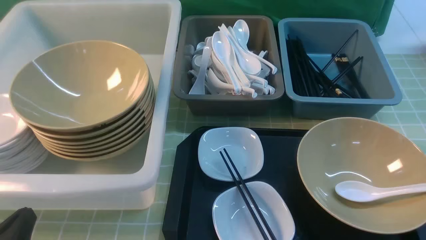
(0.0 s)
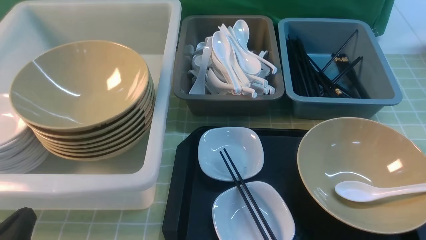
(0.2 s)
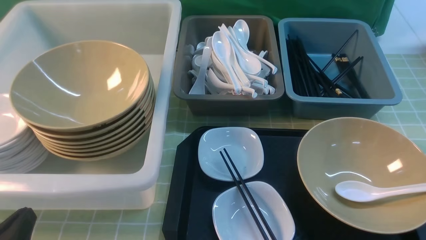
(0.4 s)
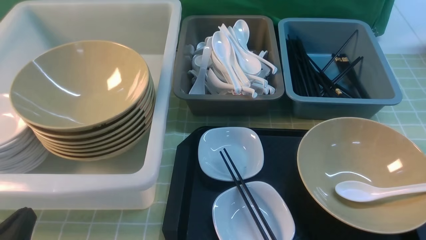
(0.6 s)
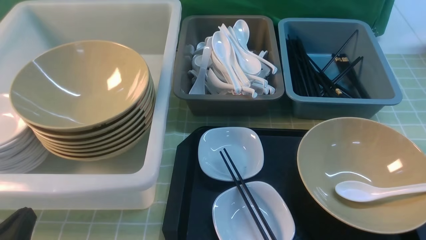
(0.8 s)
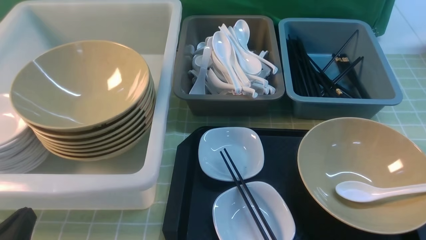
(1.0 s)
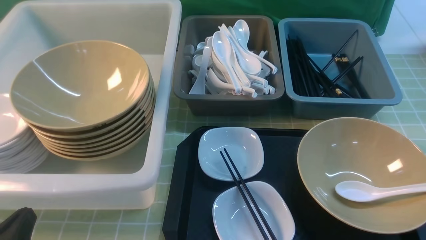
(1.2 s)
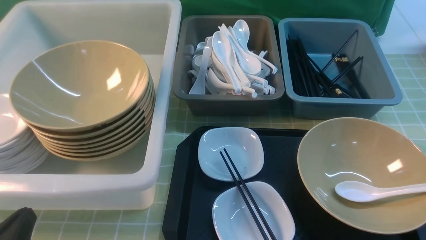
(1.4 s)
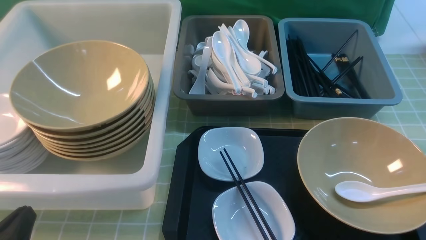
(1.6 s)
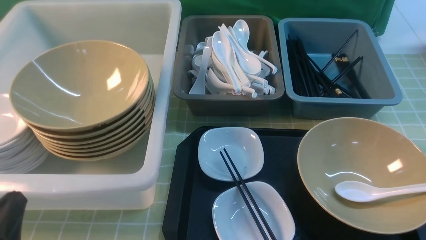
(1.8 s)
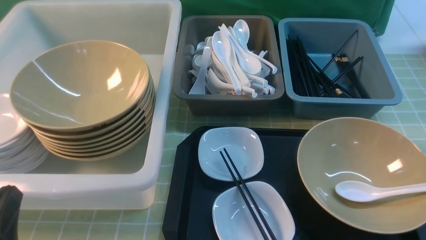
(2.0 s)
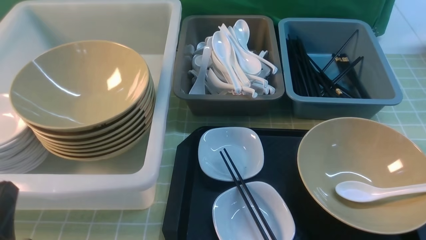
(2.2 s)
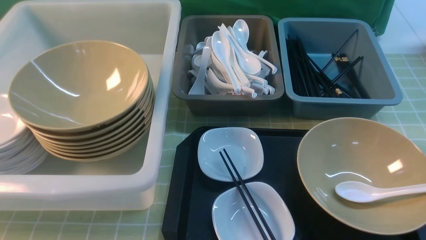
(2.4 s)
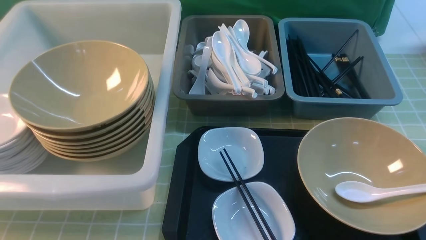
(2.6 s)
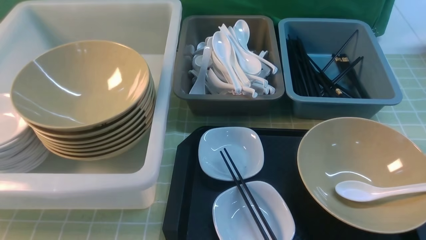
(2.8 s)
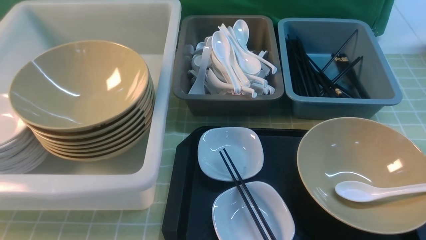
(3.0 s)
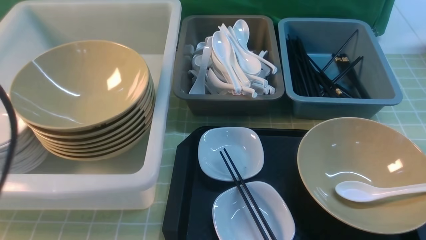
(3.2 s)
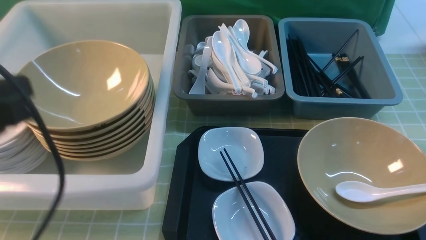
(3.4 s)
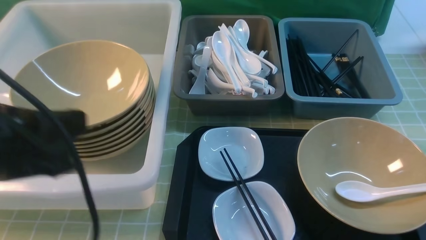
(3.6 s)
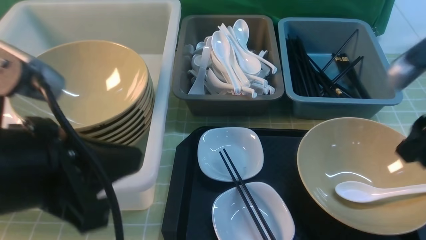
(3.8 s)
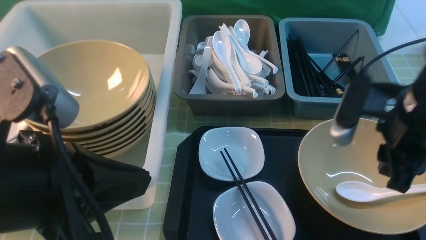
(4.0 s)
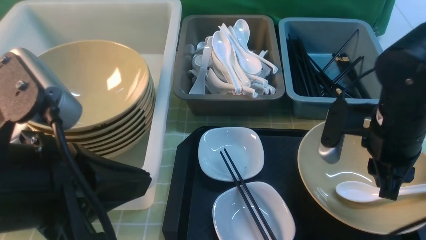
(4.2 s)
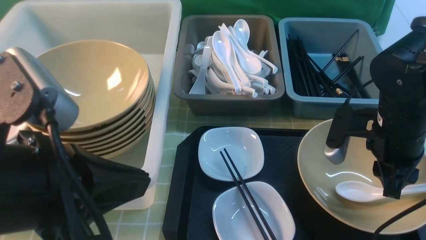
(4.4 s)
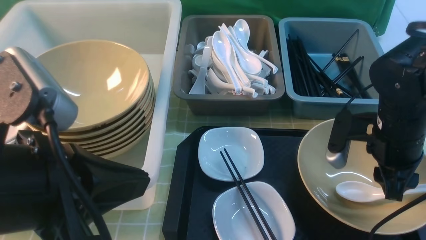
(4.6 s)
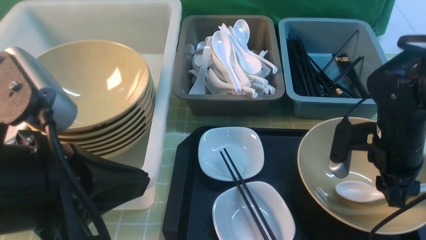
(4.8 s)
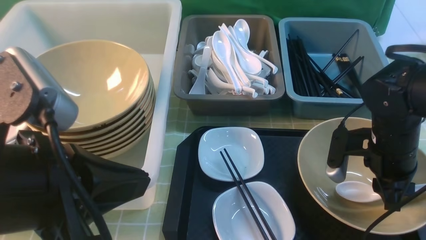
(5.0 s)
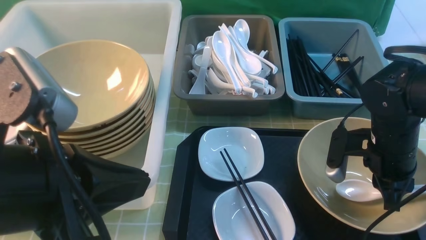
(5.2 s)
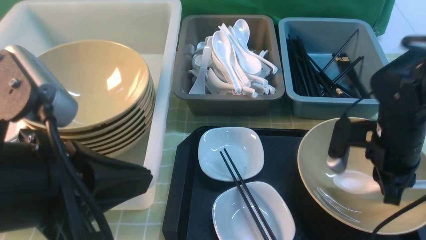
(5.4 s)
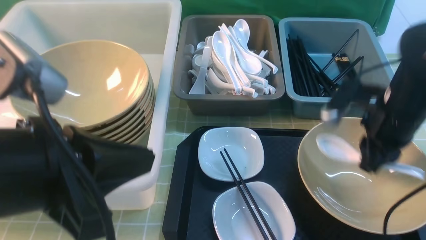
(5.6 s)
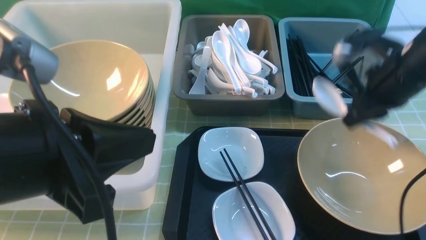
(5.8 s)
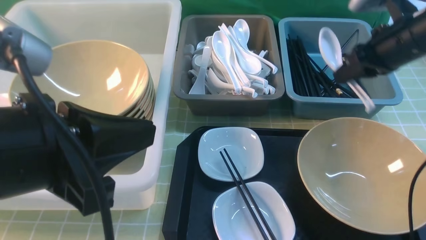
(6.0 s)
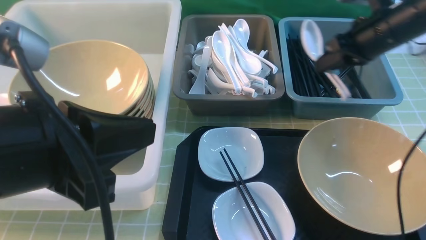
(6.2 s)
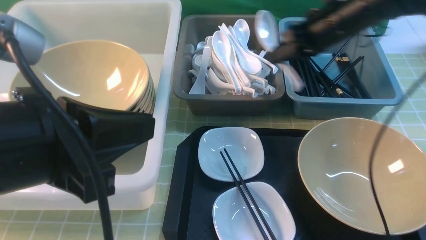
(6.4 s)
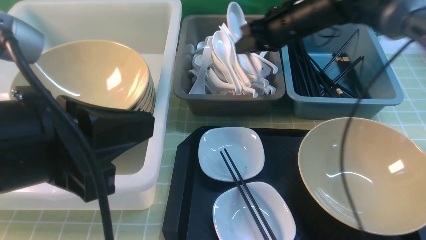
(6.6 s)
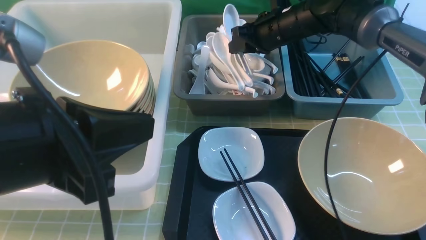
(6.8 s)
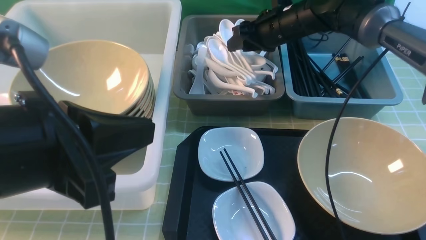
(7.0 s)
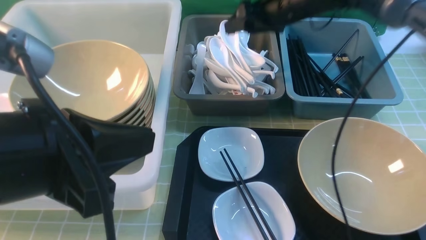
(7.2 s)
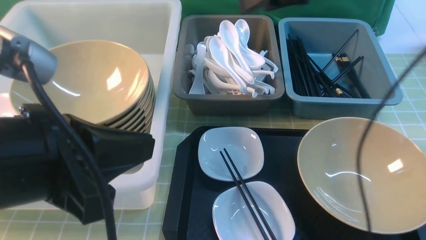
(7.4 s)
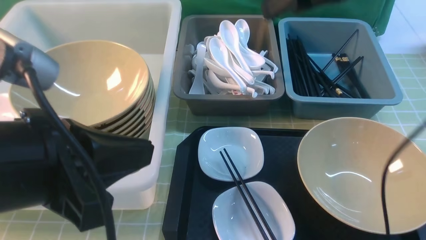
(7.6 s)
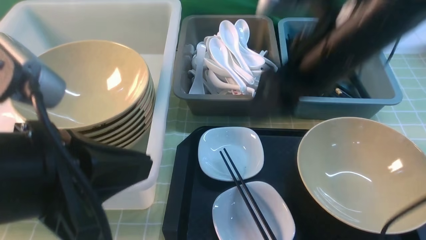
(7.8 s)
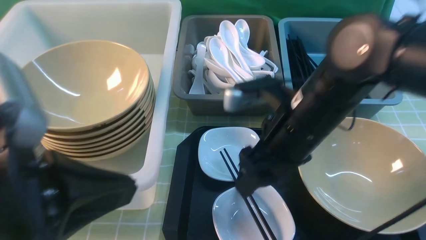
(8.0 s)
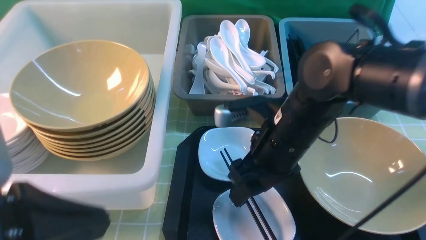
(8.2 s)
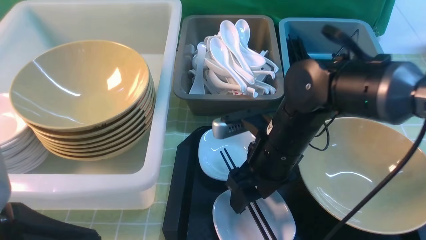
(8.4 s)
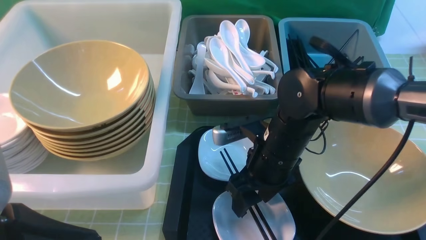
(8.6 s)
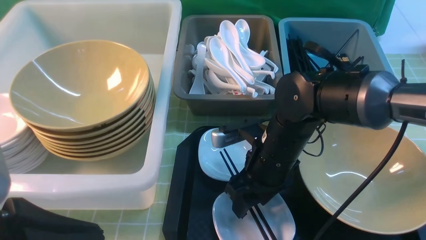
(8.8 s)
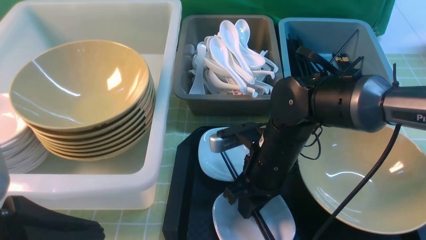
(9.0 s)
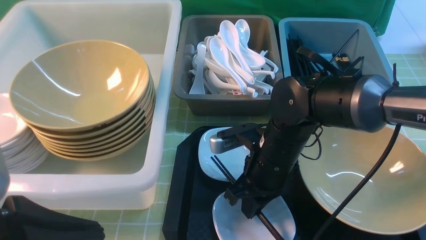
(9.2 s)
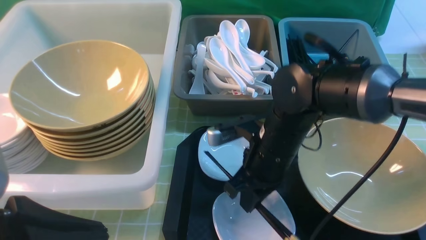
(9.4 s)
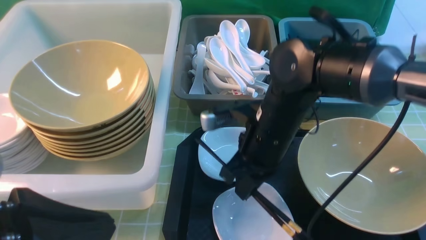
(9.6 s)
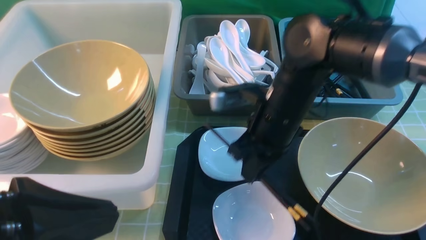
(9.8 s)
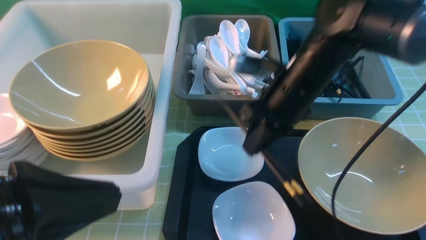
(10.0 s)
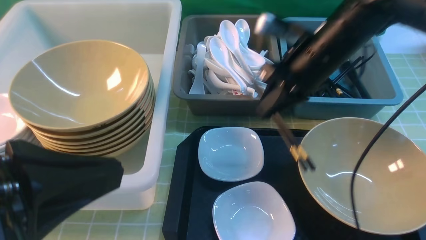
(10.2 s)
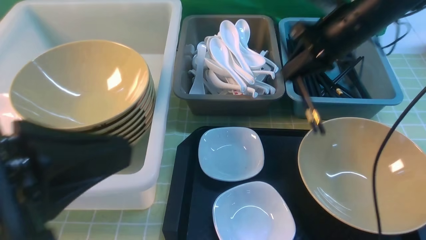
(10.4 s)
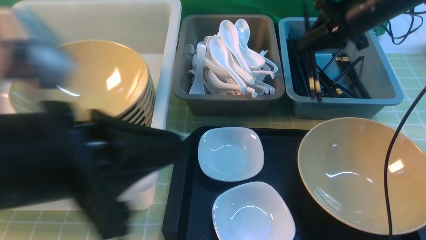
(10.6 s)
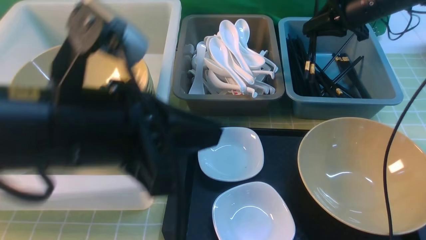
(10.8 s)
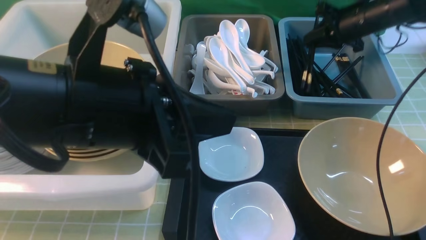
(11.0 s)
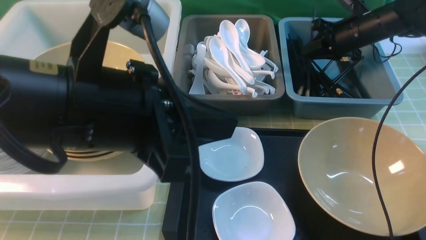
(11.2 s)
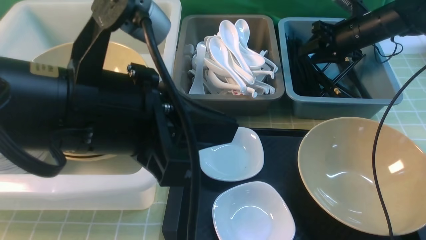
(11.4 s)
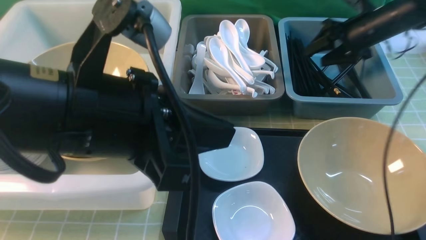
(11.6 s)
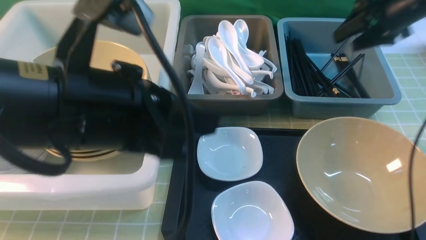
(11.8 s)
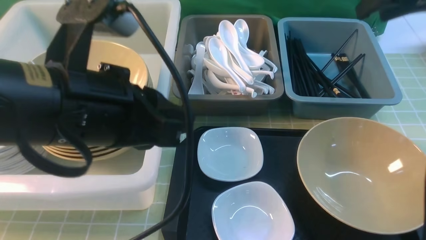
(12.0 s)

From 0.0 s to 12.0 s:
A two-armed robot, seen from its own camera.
Task of the whole recording: on green table put chopsticks spoon bowls plates into blue grey white boxes.
Step, from 0.0 s to 5.8 s: use the right arm to grab the soup spoon in the middle.
Step, from 6.0 s to 7.4 s: use the right arm to put the soup spoon into the small storage box in the middle.
Step, from 7.6 s to 9.4 s: use the right arm to grab the chopsticks.
Step, from 9.6 s to 11.2 s: use the right arm to put the chopsticks into the small storage box on the right.
From 0.0 s to 1.6 s: Neither gripper changes place.
From 1.6 s to 3.0 s: The left gripper heads upward, covering about 25 cm.
From 3.0 s to 4.4 s: The left gripper heads to the right and downward, covering about 10 cm. Meanwhile the right gripper moves forward, downward and to the left, some 25 cm.
From 4.4 s to 6.0 s: The right gripper goes roughly 10 cm forward and upward.
From 6.0 s to 7.6 s: The right gripper shifts about 15 cm to the left and upward, reaches about 10 cm forward, then returns, and opens its fingers.
From 7.6 s to 9.0 s: The right gripper travels downward by roughly 20 cm, and closes up; the left gripper ends up roughly 5 cm from where it was.
From 9.0 s to 10.4 s: The right gripper moves to the right, forward and upward, approximately 25 cm.
From 10.4 s to 12.0 s: The left gripper heads forward, covering about 10 cm. Meanwhile the right gripper moves upward and to the right, about 10 cm, and opens its fingers.

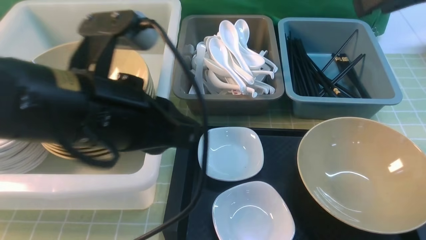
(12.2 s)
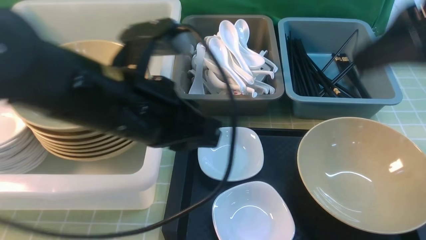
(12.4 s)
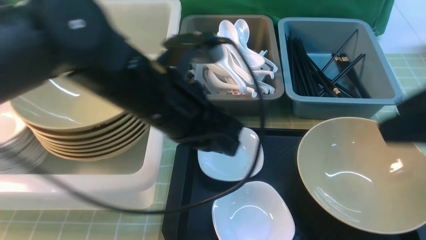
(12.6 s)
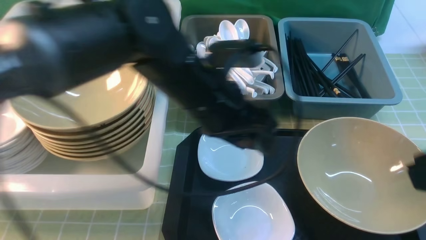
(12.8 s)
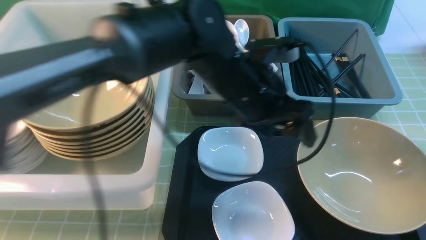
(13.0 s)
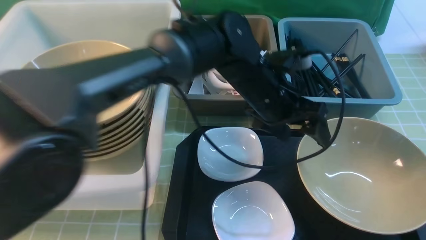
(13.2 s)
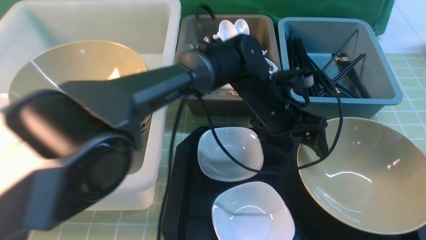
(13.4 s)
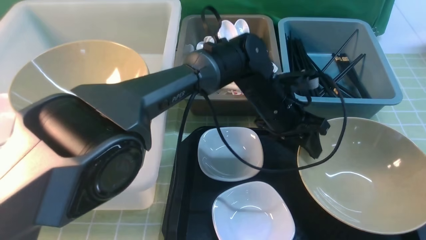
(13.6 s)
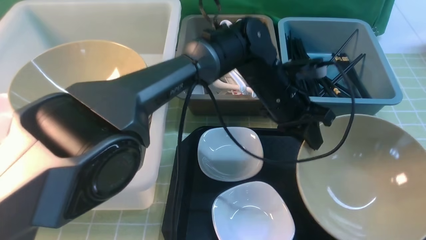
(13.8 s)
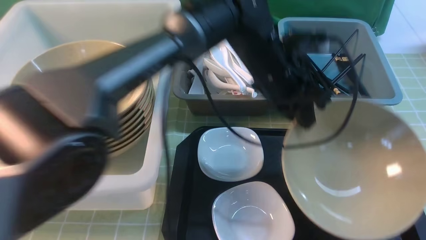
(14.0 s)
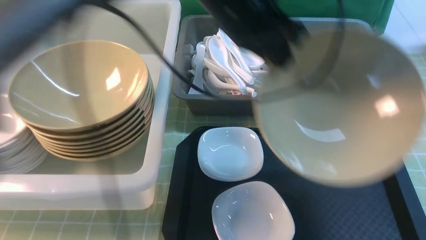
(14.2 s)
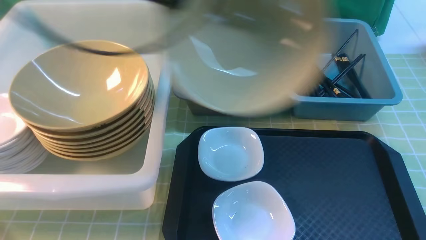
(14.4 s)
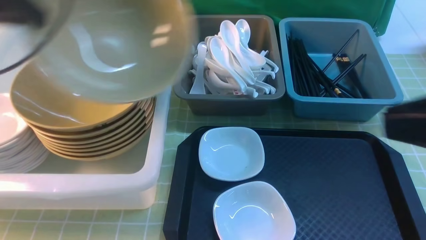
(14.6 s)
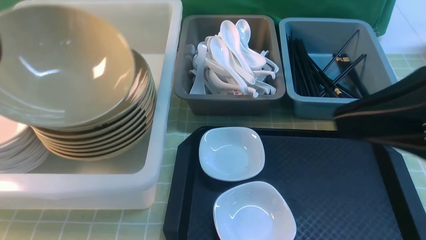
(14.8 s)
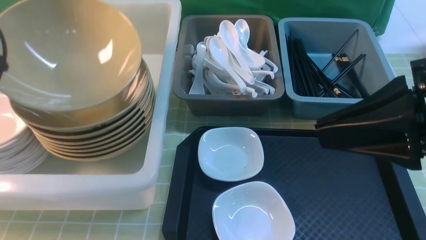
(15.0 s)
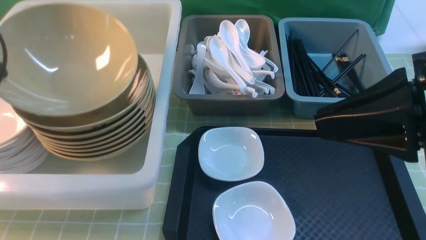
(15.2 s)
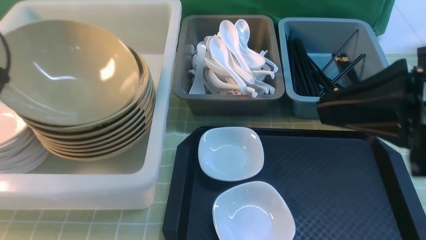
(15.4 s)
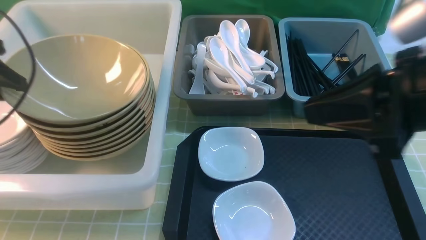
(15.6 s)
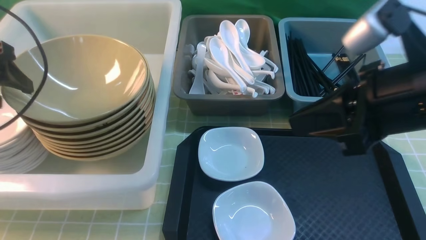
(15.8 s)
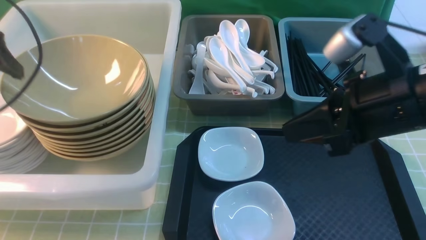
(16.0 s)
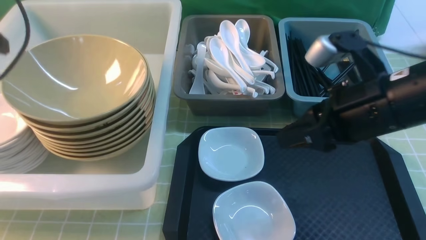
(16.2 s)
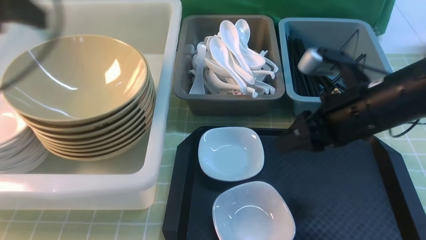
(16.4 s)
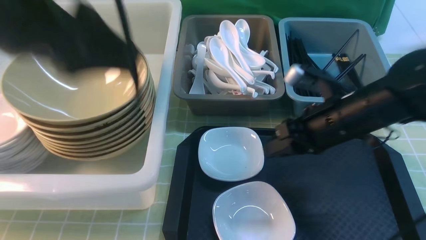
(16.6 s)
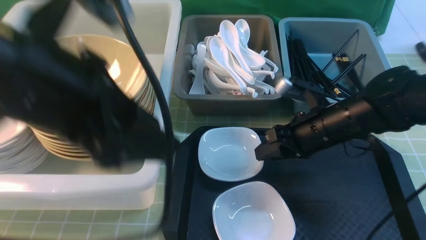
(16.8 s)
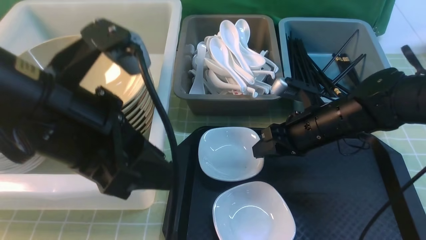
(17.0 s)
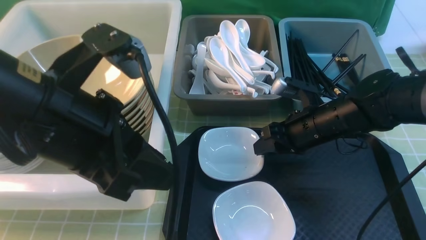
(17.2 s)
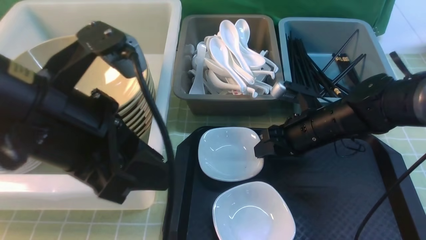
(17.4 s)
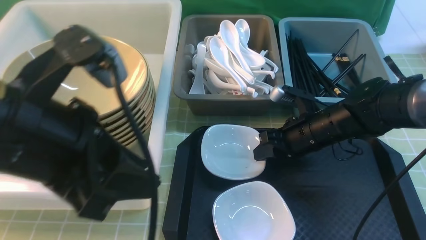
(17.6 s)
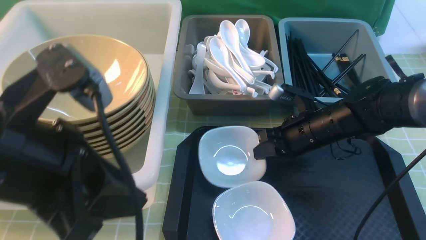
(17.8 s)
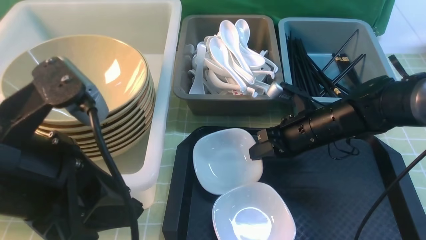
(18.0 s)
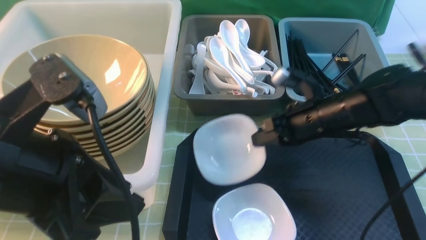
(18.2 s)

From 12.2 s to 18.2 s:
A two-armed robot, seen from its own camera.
Task of the whole recording: on green table put chopsticks spoon bowls plates into blue grey white boxes.
Step, from 12.2 s to 14.2 s: use the left arm to grab the yellow noodle bowl on the left.
Step, from 14.4 s to 16.0 s: use the left arm to put the noodle bowl into the large storage box on the left.
Step, from 16.2 s to 18.0 s: use the right arm to grab the plate.
From 12.2 s to 13.8 s: The left gripper heads to the right, forward and downward, covering about 25 cm, and opens, then closes once more, while the right gripper moves backward, approximately 25 cm, and closes up.
From 13.8 s to 15.2 s: The left gripper travels to the left by roughly 50 cm. Meanwhile the right gripper moves forward and to the left, some 10 cm.
From 15.2 s to 16.6 s: The right gripper shifts some 25 cm downward and forward, and opens its fingers. The left gripper travels to the right, upward and backward by about 25 cm, and opens its fingers.
From 16.6 s to 18.2 s: The left gripper is displaced backward and downward by roughly 10 cm. Meanwhile the right gripper closes.
